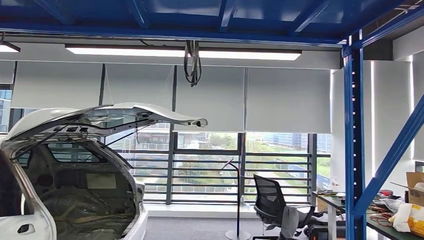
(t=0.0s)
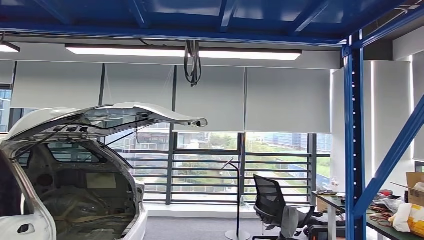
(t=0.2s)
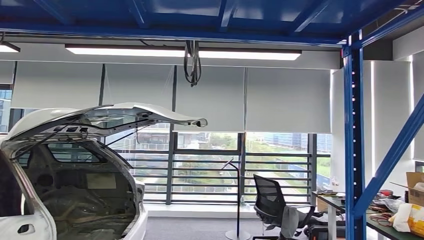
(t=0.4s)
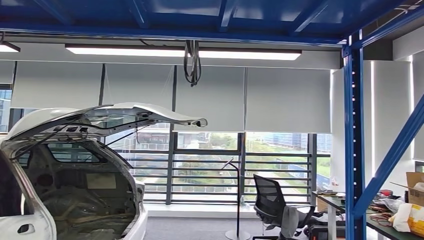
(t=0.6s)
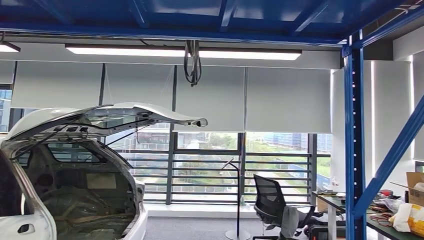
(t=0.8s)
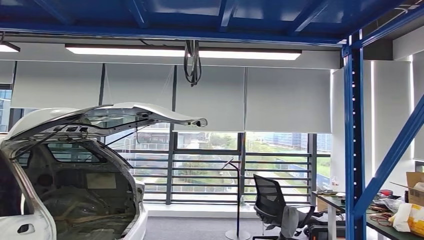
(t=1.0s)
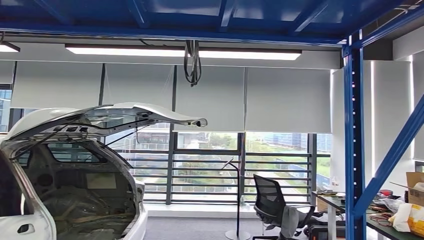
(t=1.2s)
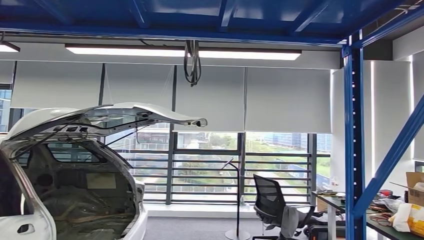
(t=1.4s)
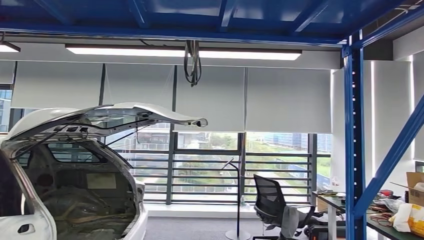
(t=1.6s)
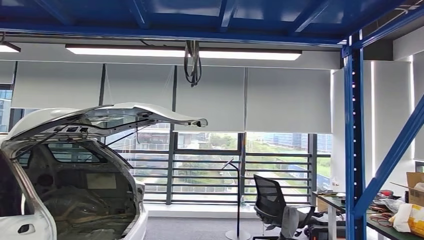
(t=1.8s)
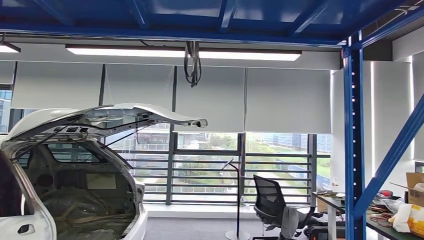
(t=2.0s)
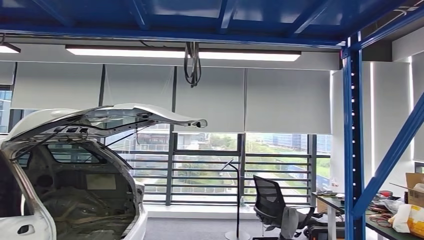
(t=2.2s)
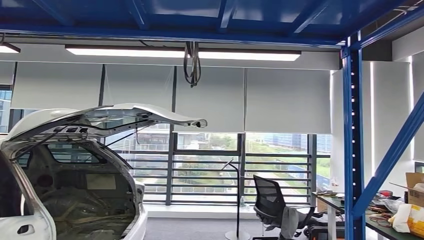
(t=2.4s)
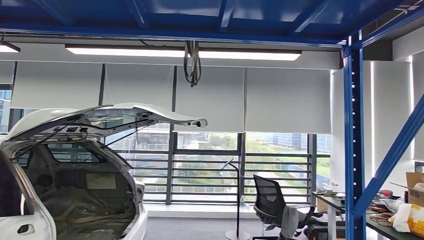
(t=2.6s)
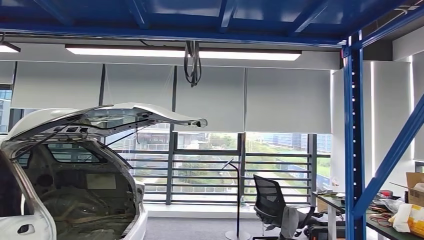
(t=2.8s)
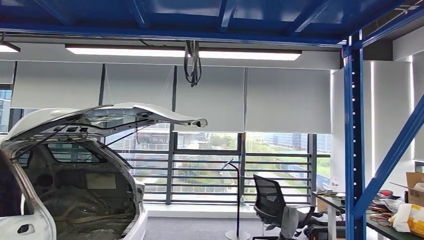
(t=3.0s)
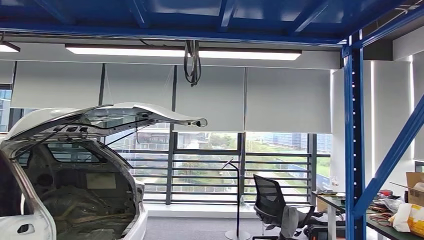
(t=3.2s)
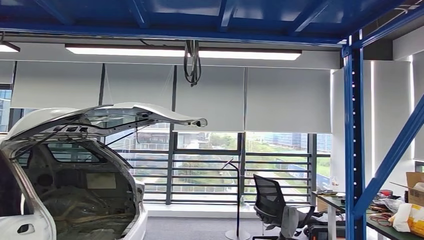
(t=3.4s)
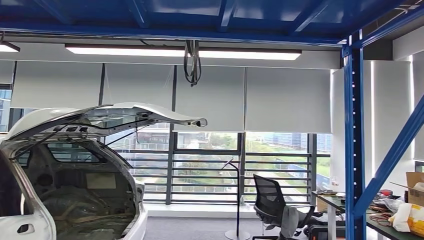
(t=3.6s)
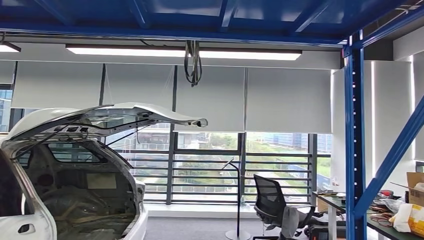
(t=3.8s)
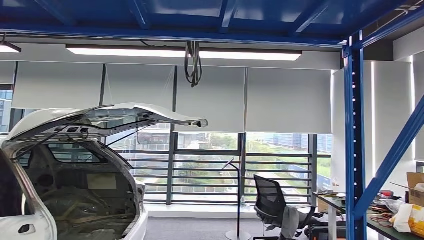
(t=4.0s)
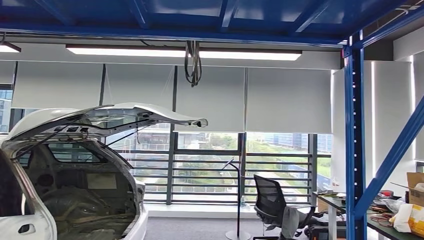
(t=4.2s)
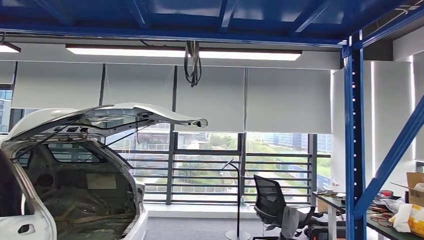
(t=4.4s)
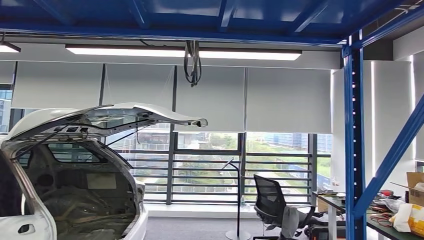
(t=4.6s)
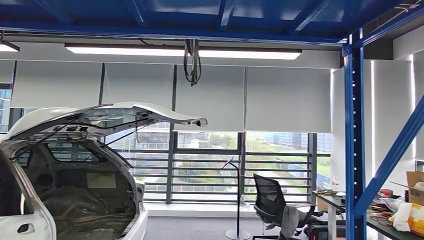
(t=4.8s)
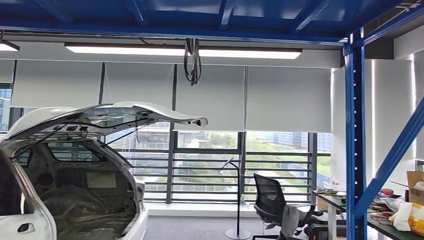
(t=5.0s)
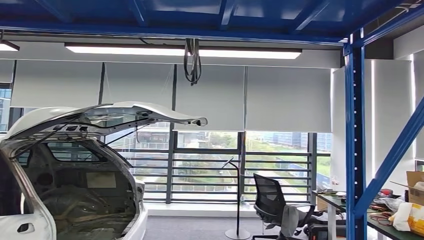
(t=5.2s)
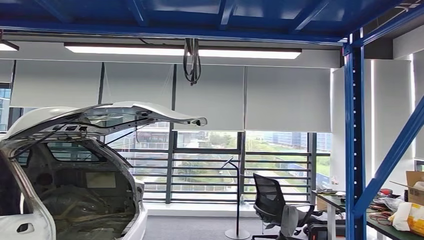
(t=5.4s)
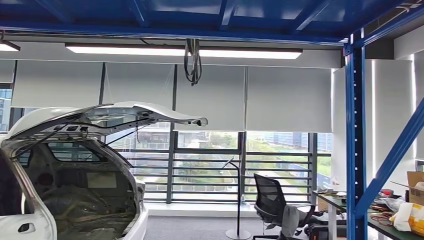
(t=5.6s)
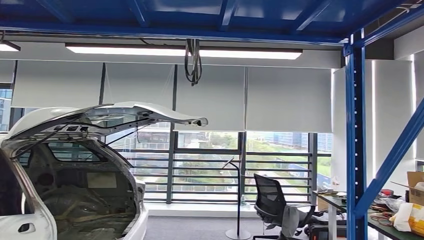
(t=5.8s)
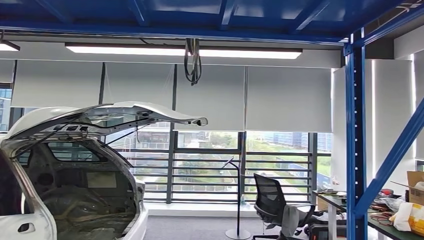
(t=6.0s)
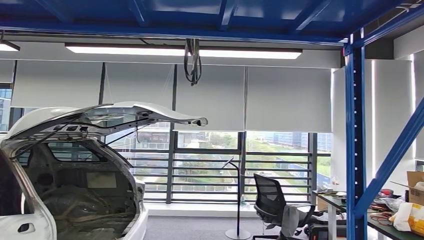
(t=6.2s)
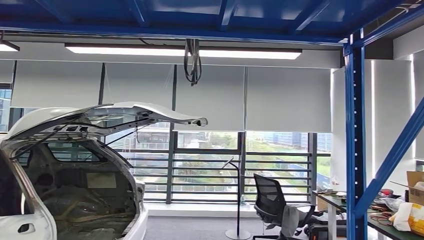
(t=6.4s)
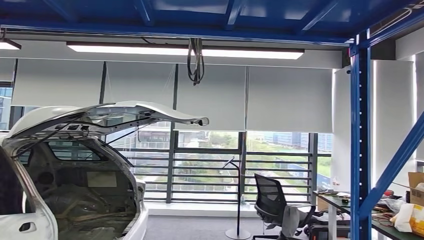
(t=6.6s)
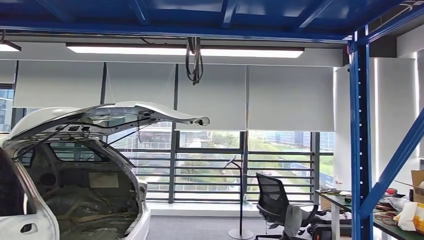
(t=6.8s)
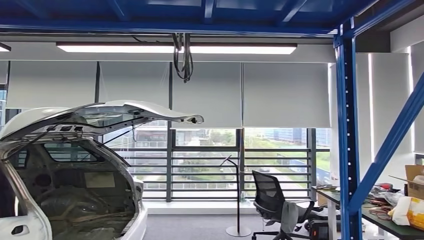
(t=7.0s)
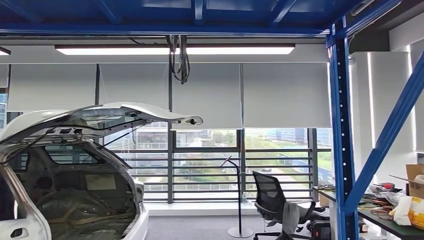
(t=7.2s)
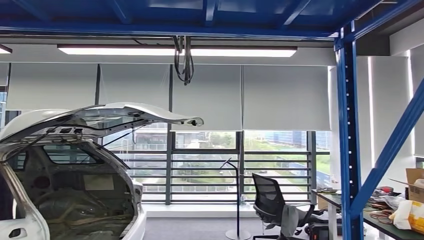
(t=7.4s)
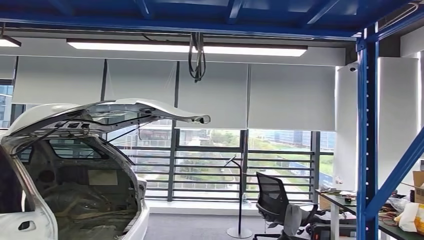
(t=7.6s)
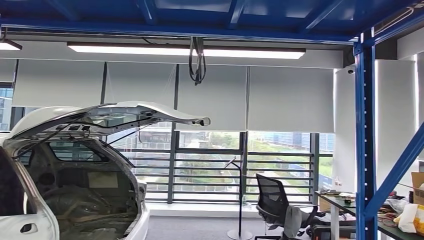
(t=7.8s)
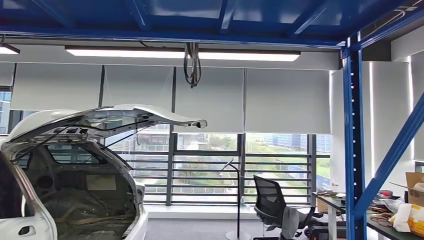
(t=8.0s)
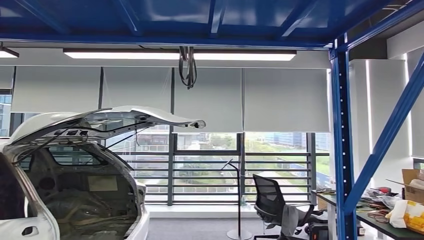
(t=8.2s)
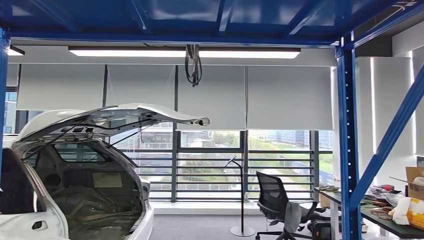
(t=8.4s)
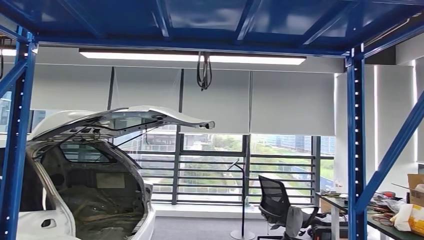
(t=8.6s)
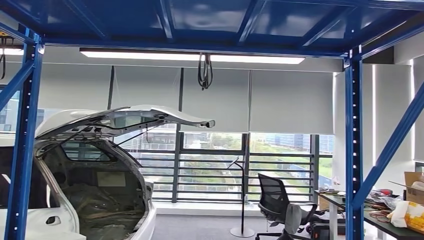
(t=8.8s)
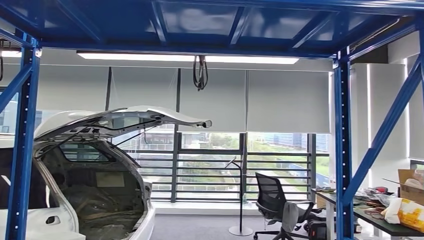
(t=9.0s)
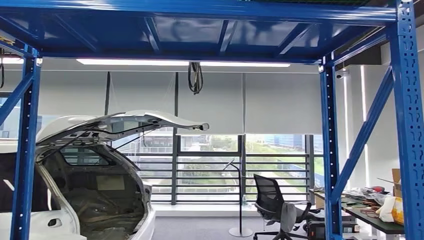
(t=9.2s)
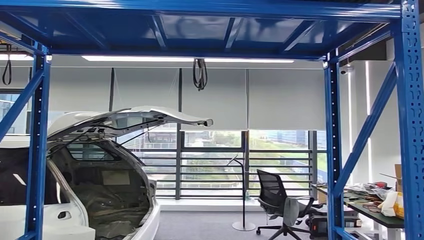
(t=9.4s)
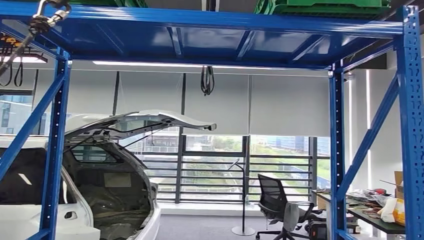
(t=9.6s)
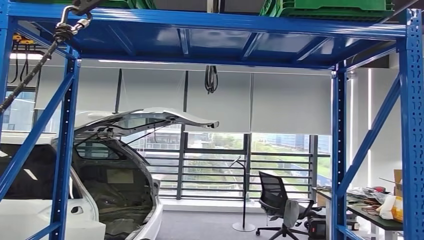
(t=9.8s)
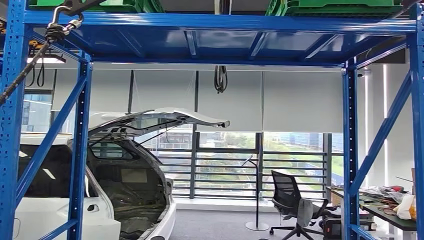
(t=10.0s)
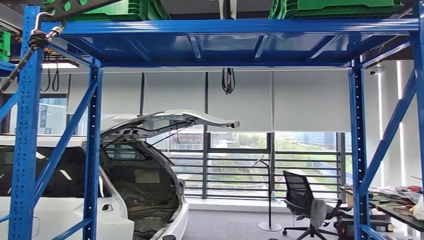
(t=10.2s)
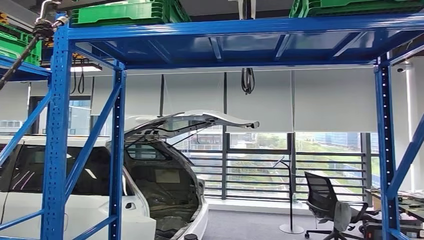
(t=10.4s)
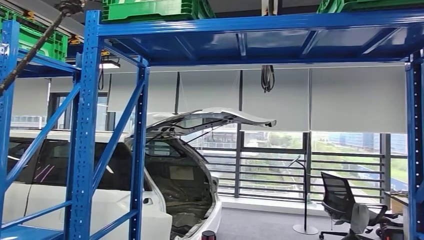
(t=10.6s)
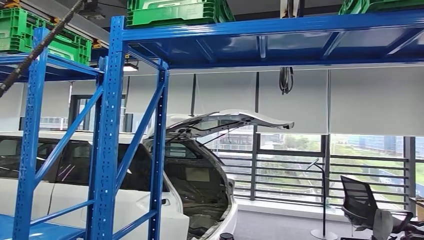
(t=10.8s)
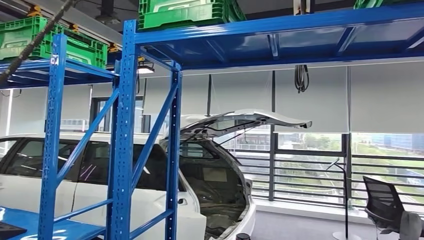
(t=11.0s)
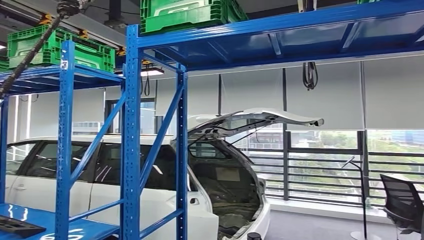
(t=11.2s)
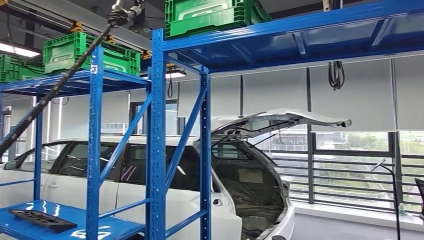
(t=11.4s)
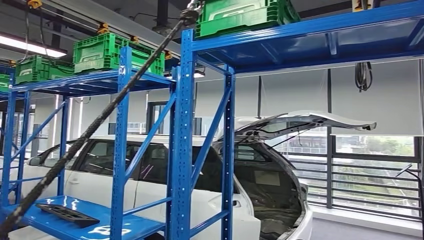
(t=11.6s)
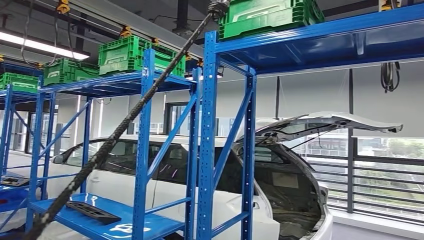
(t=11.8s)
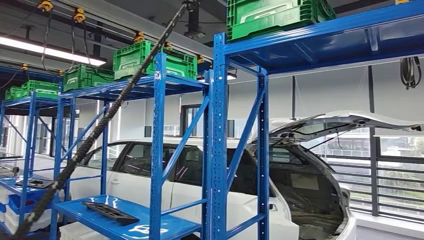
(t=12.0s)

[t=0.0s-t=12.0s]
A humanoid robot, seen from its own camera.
Step, t=0.0s to t=4.8s: Pick up the small component from the shelf.
t=4.4s to t=6.0s: The left hand moves approximately 5 cm. Meanwhile the right hand travels upward, backward and to the left by approximately 25 cm.

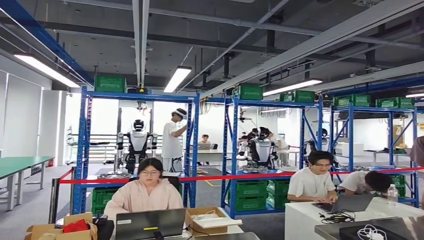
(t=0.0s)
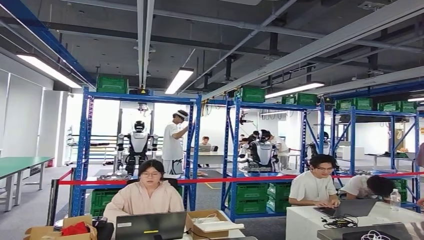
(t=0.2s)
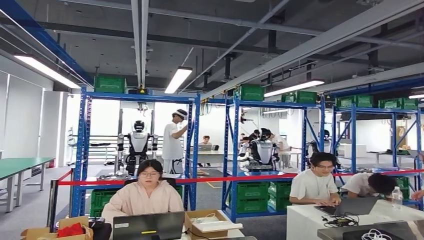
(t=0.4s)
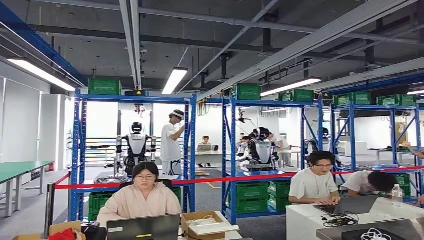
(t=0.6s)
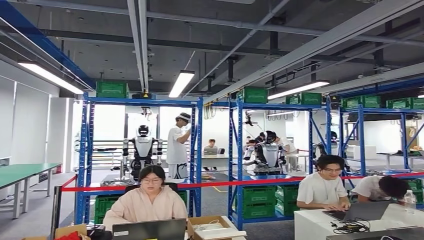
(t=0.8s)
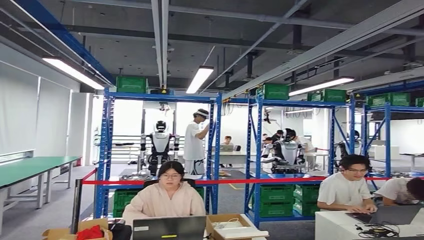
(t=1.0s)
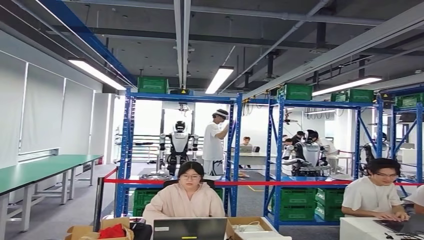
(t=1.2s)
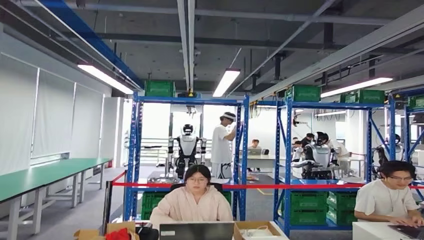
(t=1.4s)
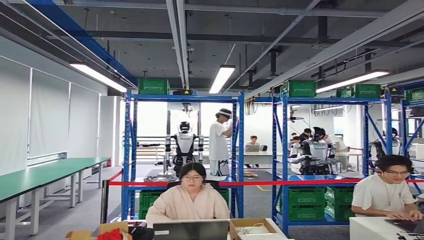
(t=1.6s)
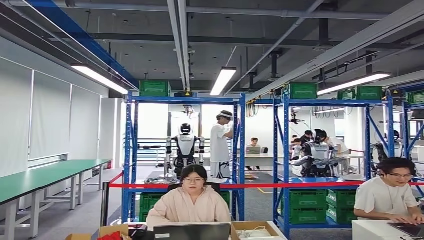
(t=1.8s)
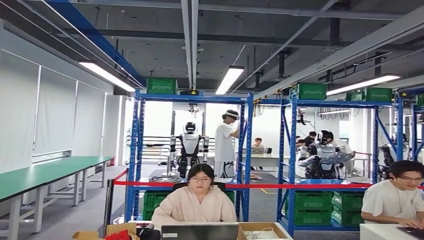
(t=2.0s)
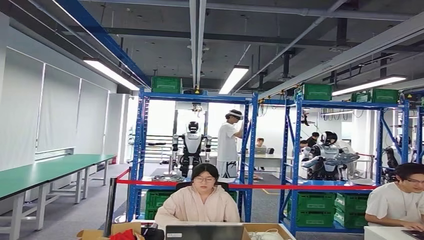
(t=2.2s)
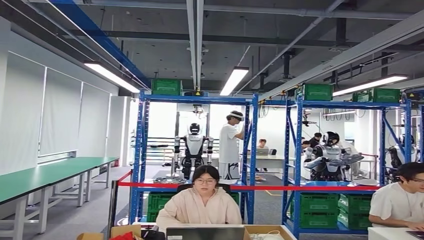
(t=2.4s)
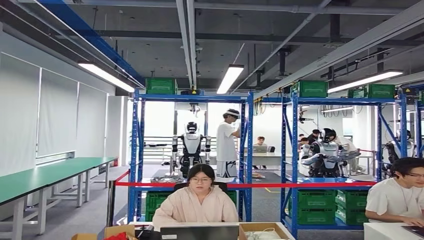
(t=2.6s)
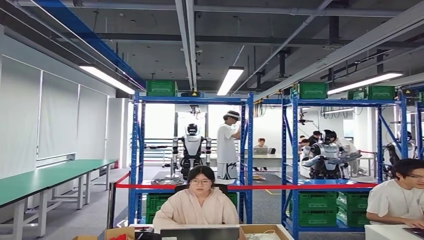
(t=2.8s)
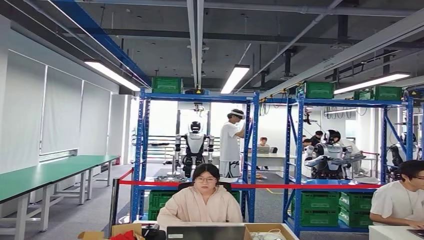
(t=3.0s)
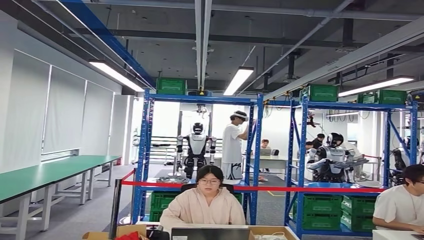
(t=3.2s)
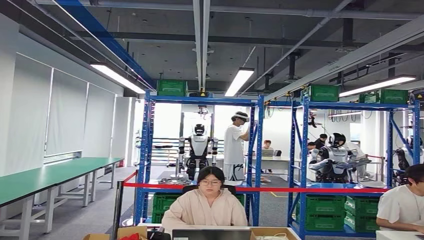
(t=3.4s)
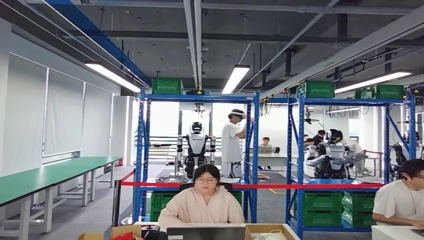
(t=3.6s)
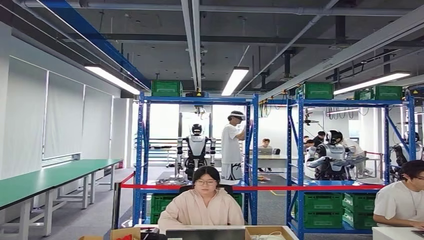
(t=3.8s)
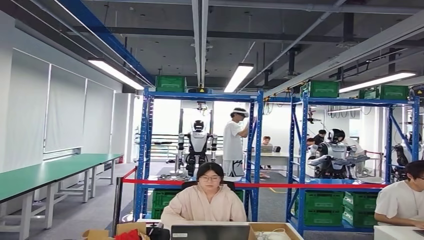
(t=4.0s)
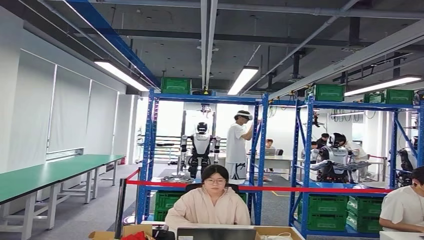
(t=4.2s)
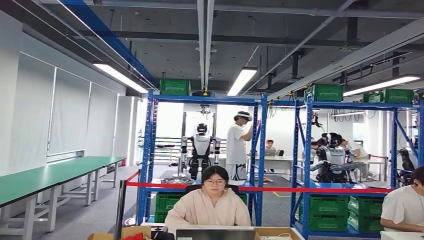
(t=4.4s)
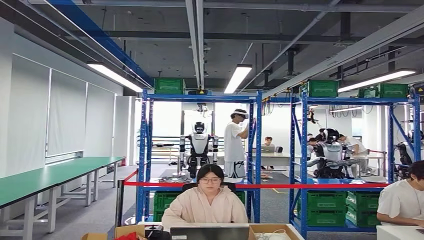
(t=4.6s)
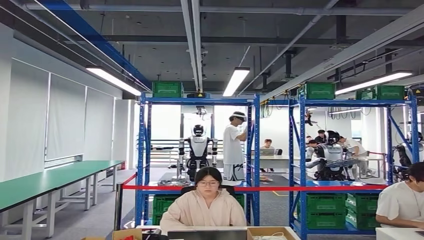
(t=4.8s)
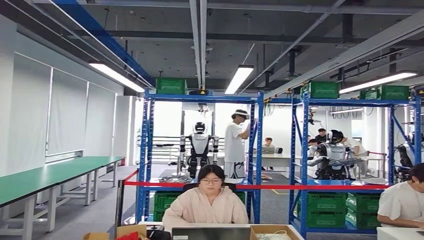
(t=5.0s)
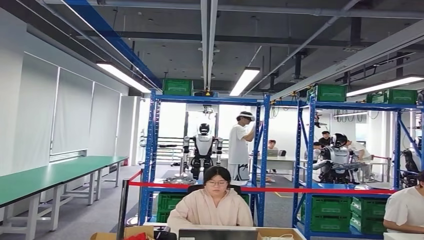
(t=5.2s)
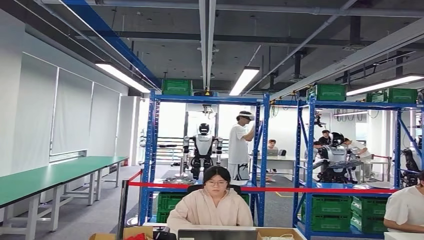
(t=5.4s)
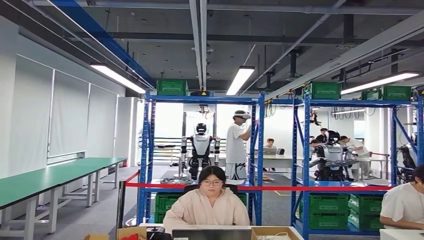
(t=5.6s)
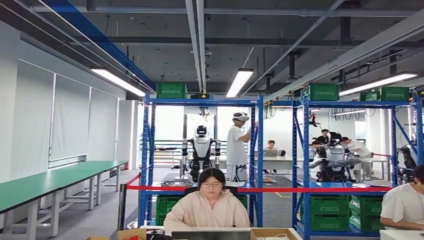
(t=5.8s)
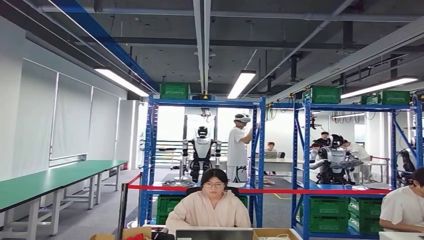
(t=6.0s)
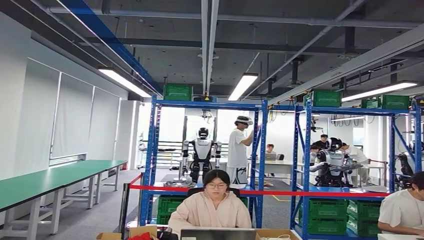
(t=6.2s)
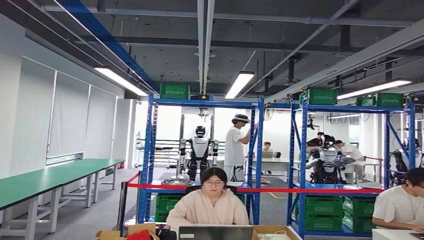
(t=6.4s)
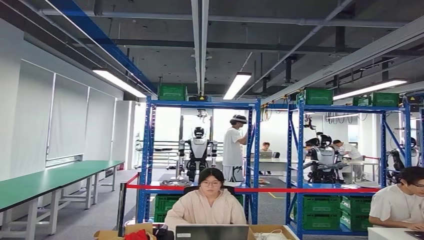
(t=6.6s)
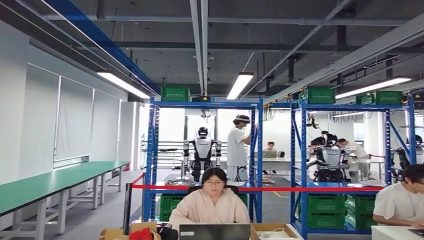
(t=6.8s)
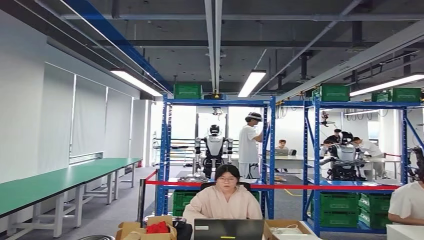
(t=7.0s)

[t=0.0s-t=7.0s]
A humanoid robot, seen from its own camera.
Step, t=0.0s to t=3.8s: Move the small component to the workbench.
